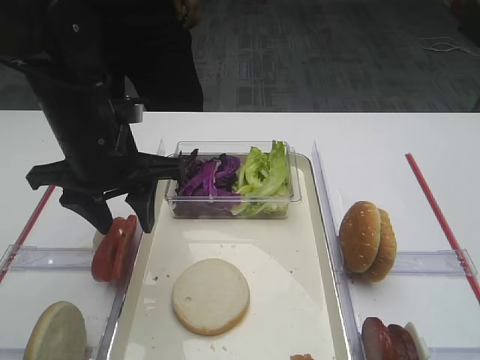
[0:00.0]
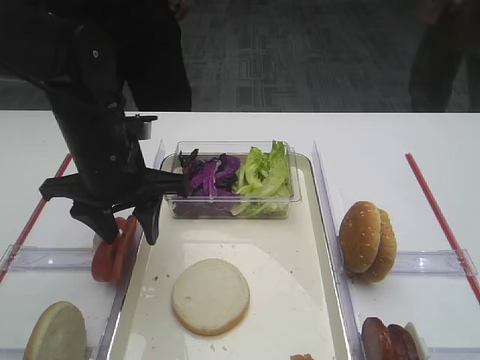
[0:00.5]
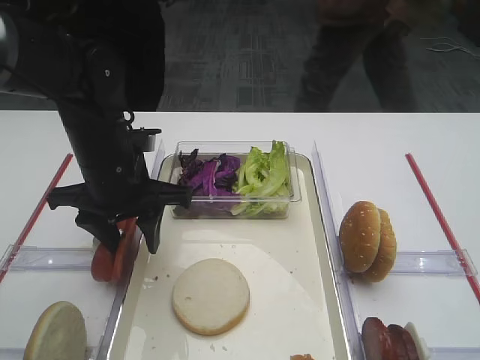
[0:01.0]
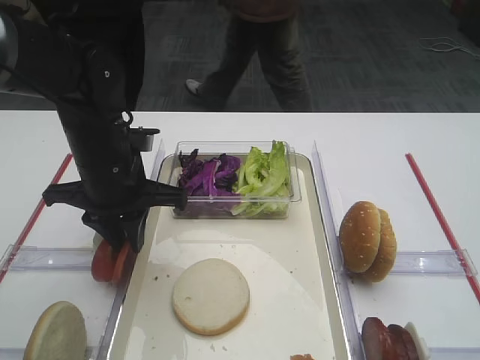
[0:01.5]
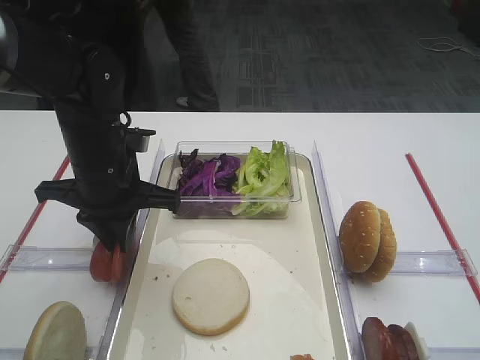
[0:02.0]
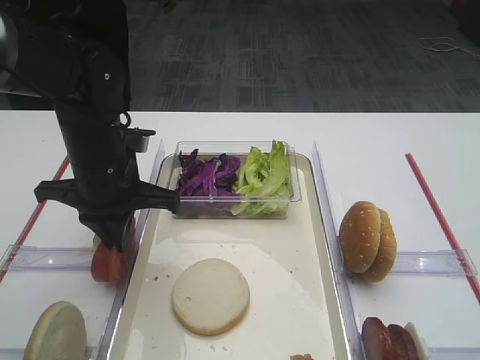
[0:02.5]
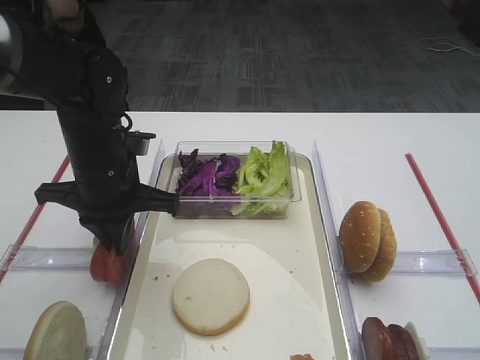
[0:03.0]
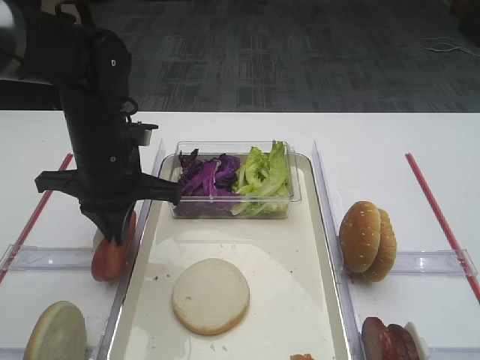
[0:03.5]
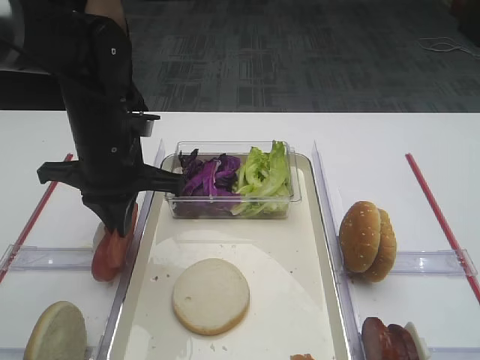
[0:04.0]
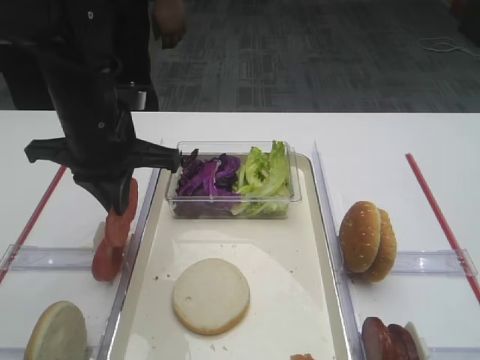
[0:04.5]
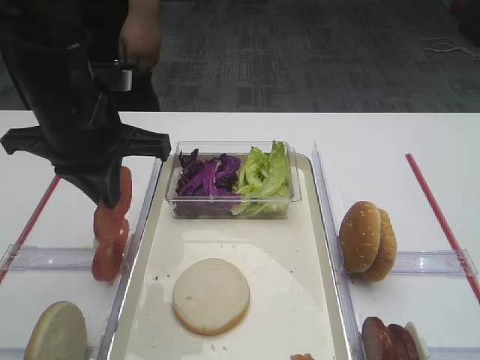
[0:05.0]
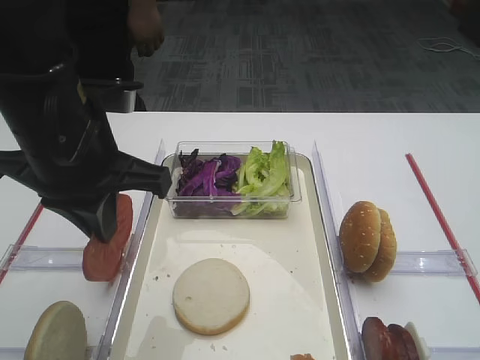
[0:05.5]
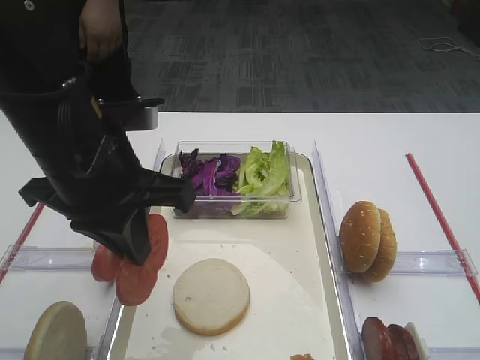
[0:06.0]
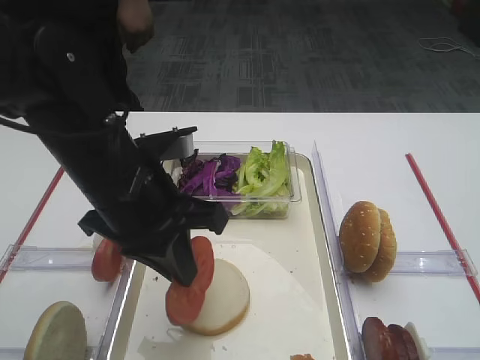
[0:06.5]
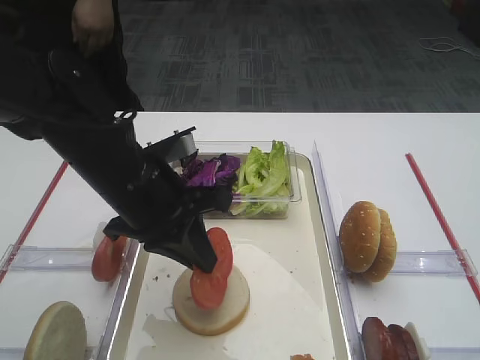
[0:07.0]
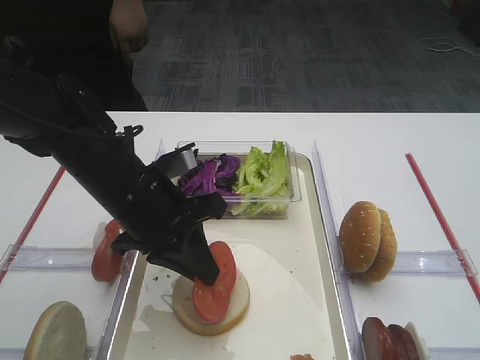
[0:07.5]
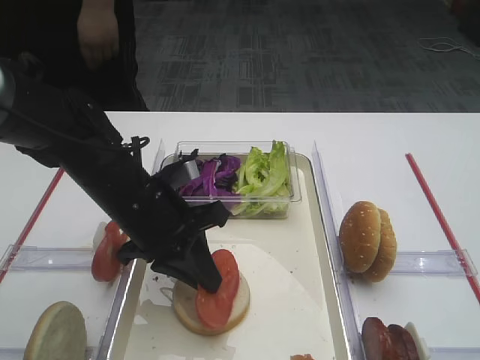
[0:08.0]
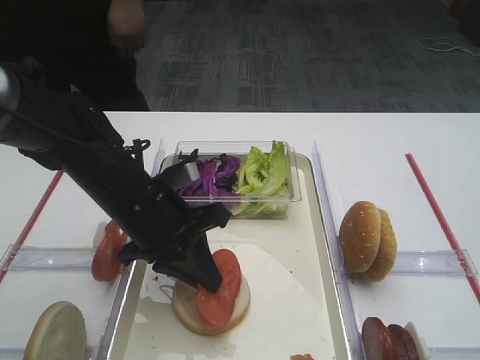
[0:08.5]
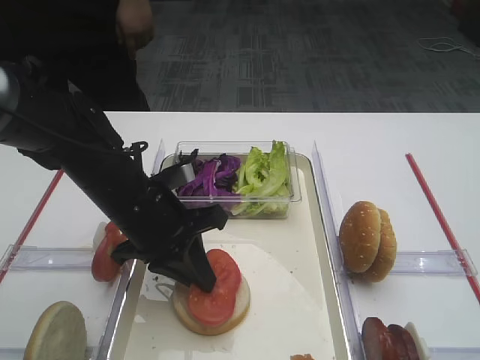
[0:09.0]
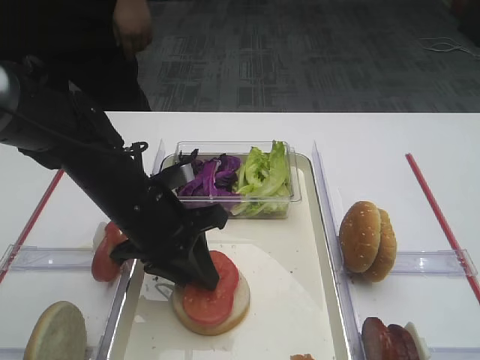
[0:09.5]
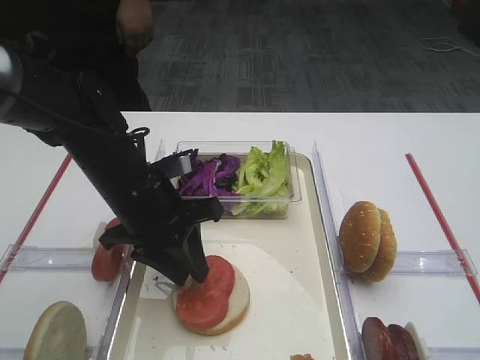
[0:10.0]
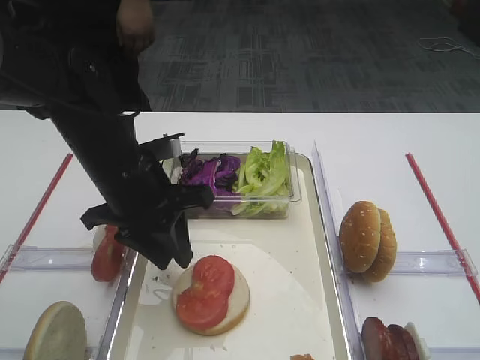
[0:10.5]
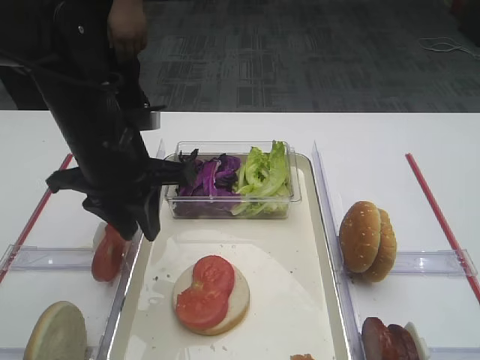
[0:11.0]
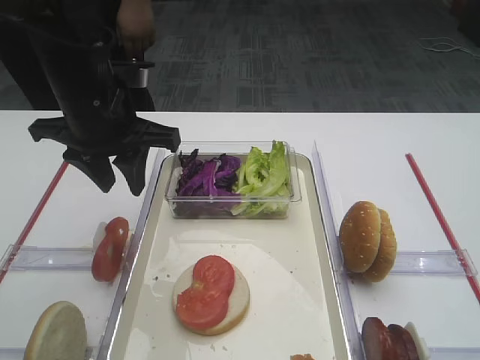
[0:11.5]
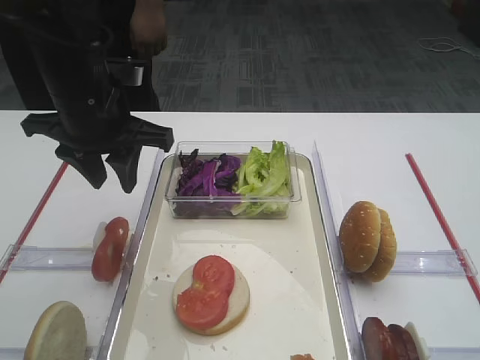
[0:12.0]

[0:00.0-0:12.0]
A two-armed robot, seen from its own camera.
Step, 0:00.0 to 0:04.0: Pick up the tomato slice with the left gripper.
Step, 0:04.5 to 0:10.0: Place the tomato slice on the bread slice with the left gripper.
0:00.0 to 0:02.0: The left gripper shifts by about 5 cm, and closes up.
0:02.0 to 0:04.0: The right gripper closes its fingers.
0:04.0 to 0:06.0: The left gripper shifts about 10 cm backward and upward.
0:06.0 to 0:08.0: The left gripper moves downward, about 10 cm.
0:08.0 to 0:10.0: The left gripper opens.
0:10.0 to 0:12.0: The left gripper goes approximately 10 cm upward.

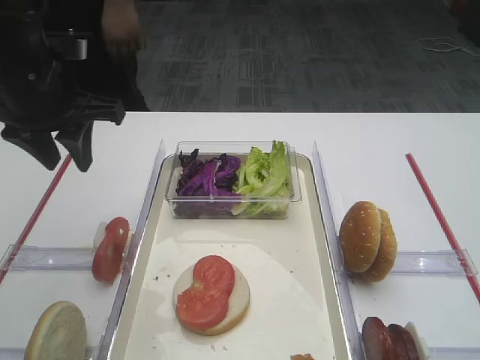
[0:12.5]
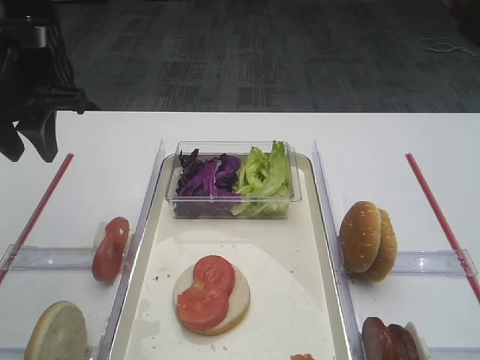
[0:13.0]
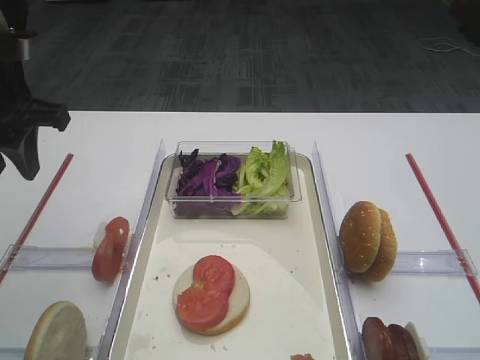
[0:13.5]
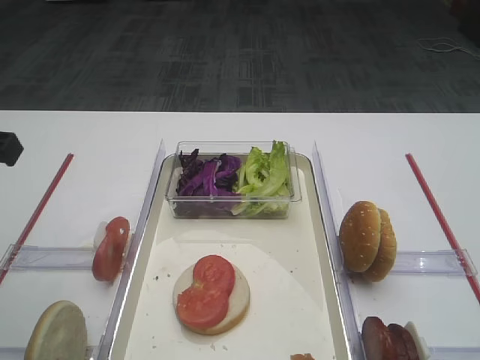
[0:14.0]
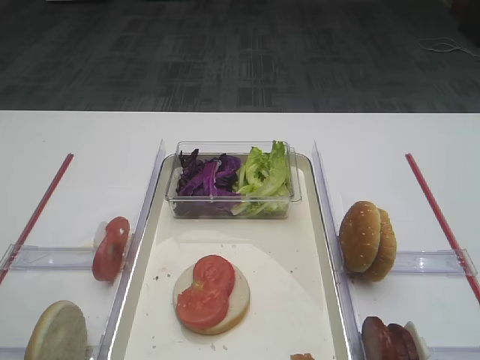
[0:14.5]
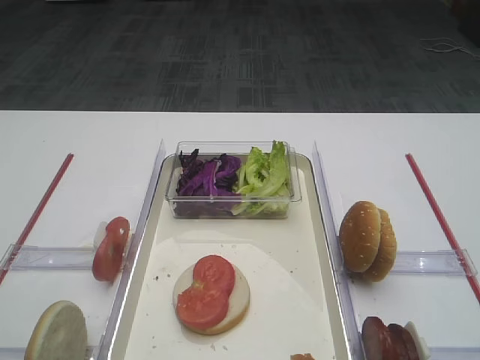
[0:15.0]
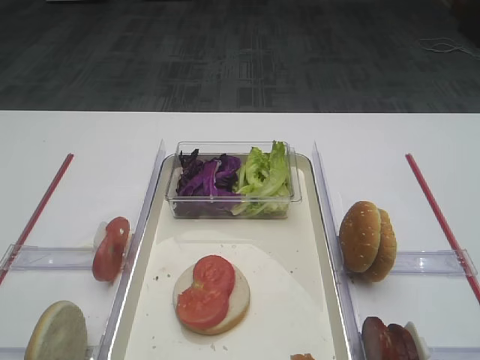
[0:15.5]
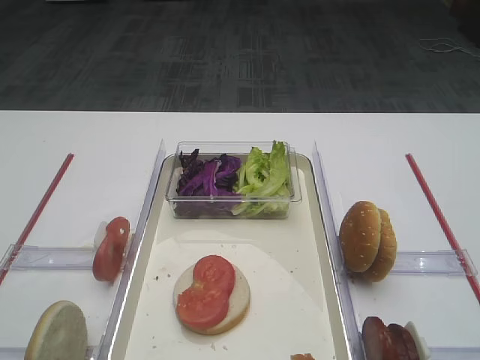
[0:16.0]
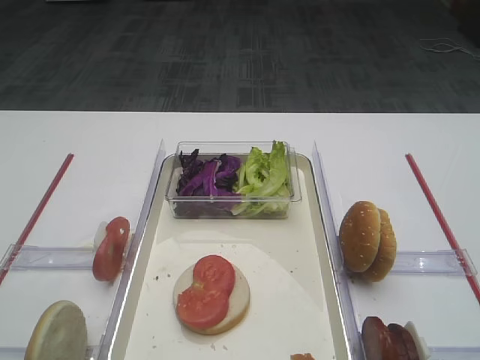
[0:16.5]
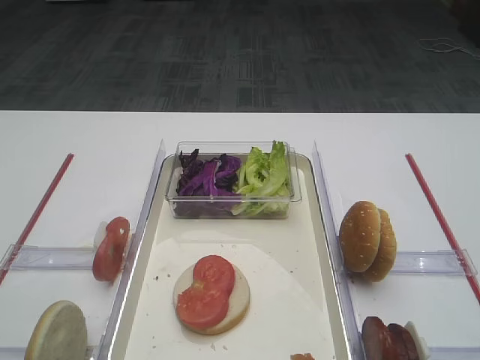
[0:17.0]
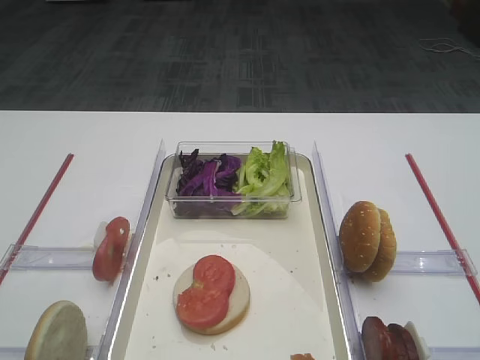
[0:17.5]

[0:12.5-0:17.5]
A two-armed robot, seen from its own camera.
0:12.5 to 0:15.0: The left gripper is displaced backward by about 25 cm.

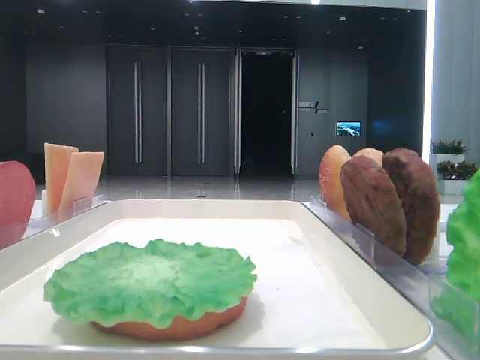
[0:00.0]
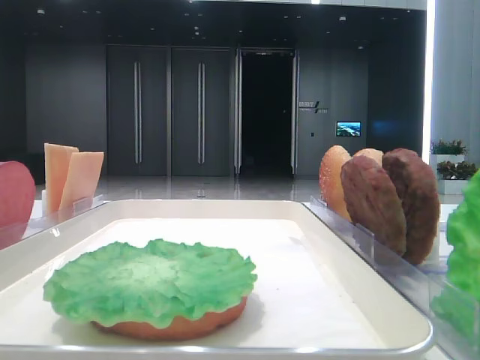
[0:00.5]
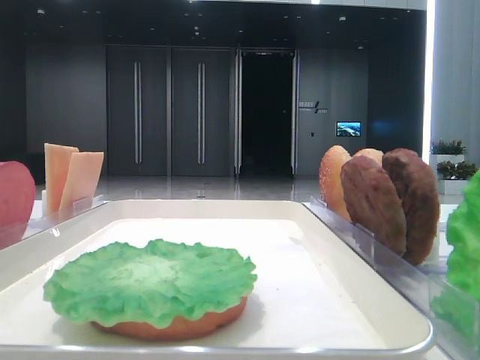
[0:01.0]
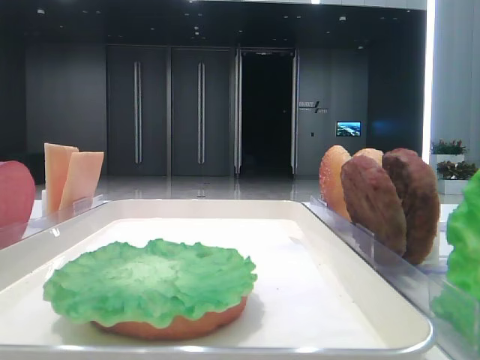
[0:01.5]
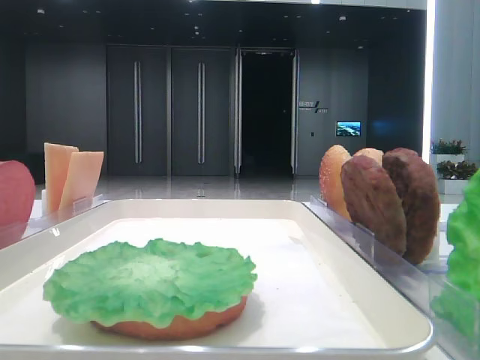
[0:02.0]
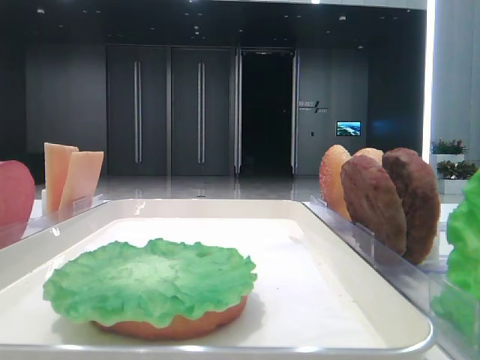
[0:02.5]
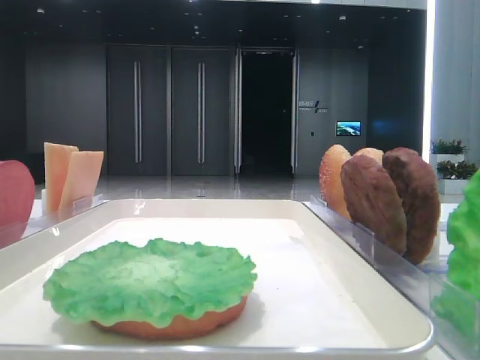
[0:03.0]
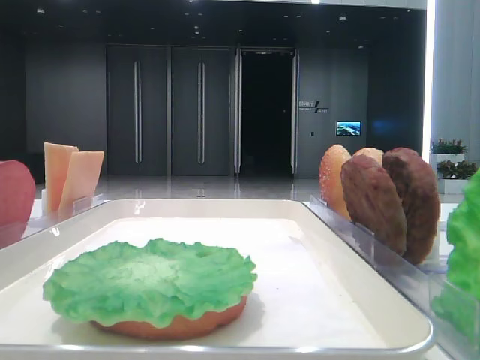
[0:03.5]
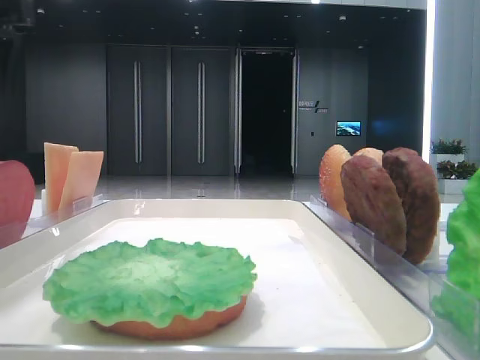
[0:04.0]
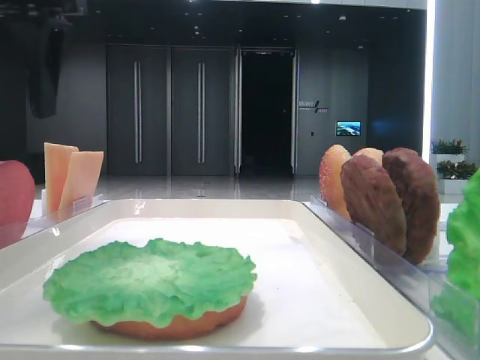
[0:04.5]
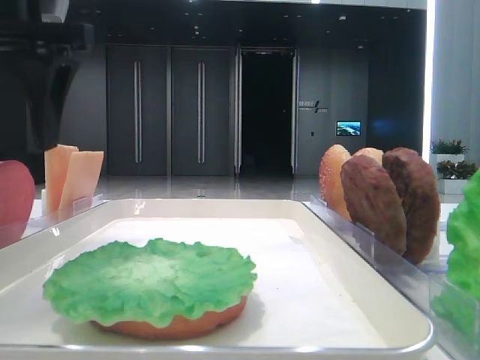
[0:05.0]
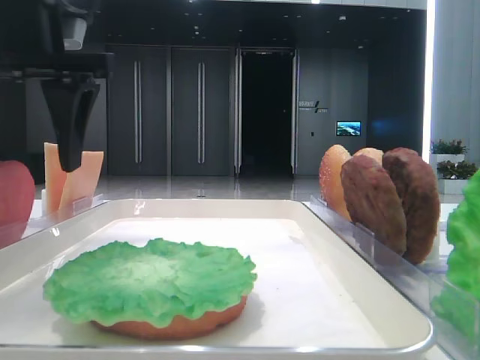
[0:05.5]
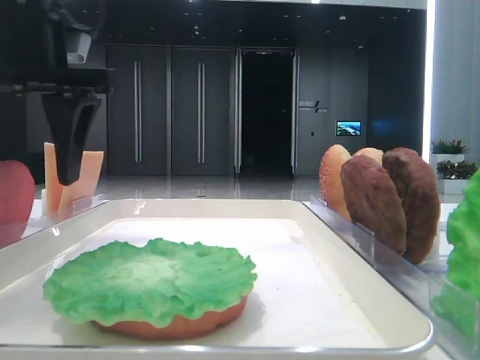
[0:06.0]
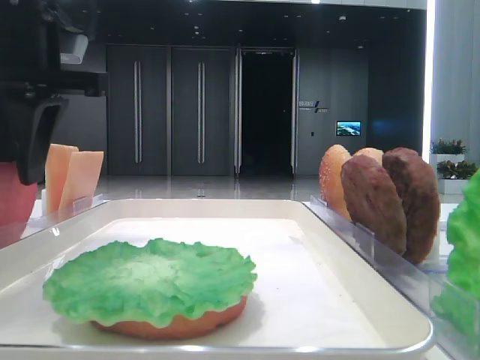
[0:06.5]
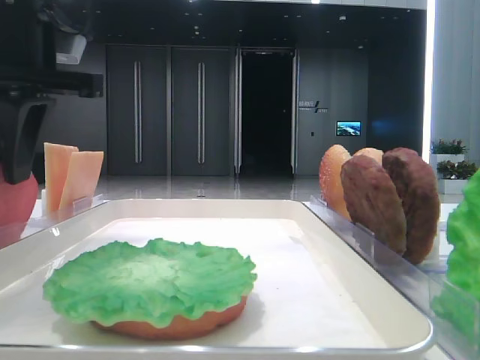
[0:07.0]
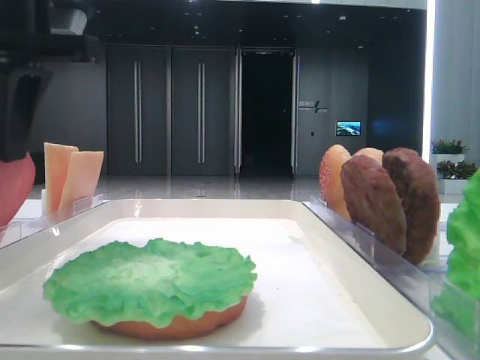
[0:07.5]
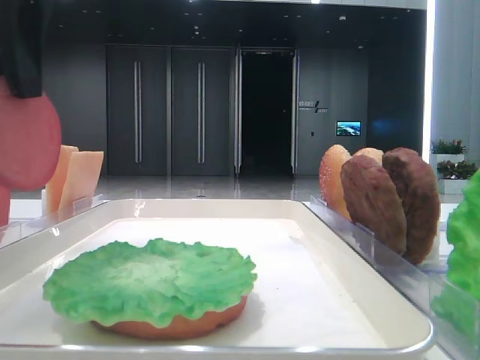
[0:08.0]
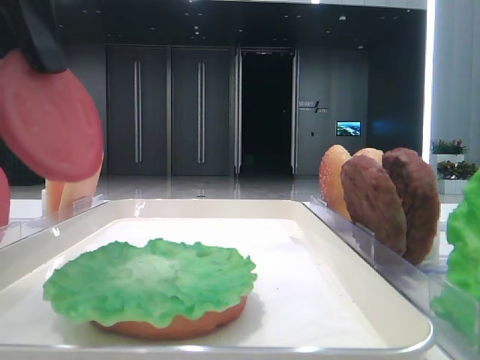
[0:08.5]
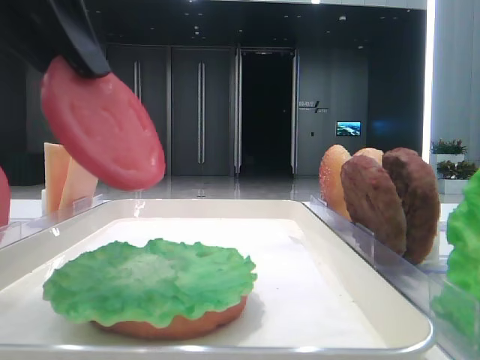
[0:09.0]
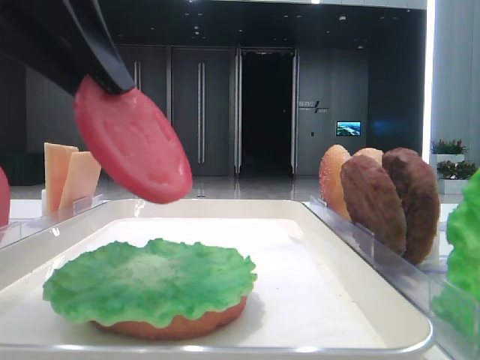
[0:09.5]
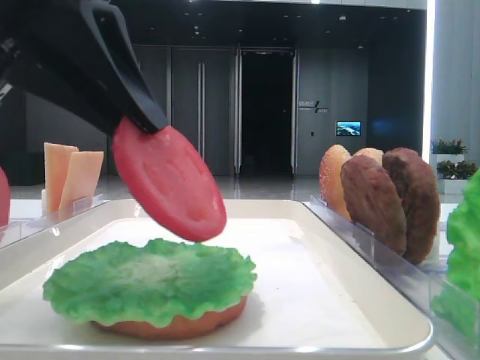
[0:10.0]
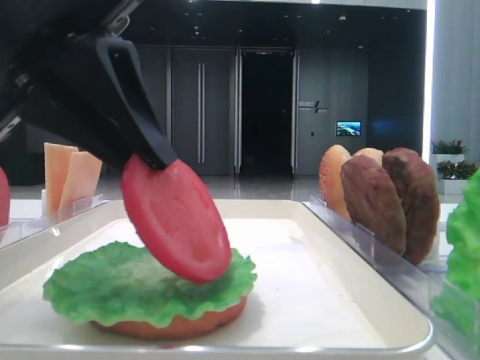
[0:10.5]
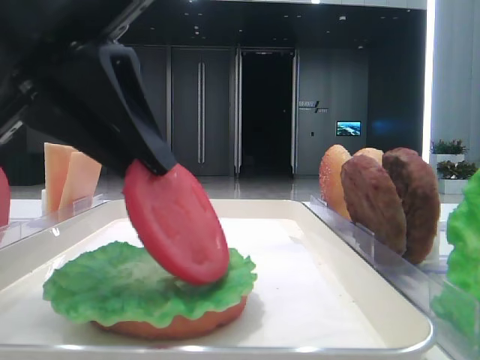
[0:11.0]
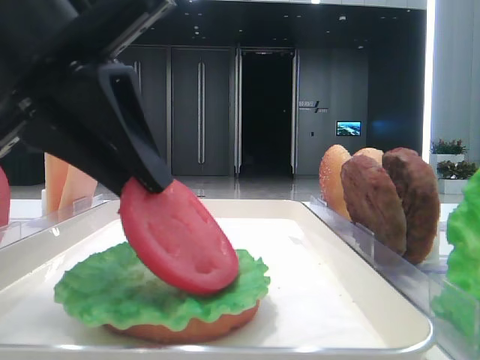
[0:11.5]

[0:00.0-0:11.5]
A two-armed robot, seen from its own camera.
Step, 0:00.0 to 0:07.0: Pick up the tomato slice with the left hand.
0:02.0 to 0:04.0: The left gripper heads forward and to the right, covering some 15 cm.
0:04.0 to 0:06.0: The left gripper shifts about 5 cm to the right.
0:06.0 to 0:07.5: The left gripper closes up.
0:07.5 to 0:09.5: The left gripper moves backward, about 10 cm.
0:09.5 to 0:11.5: The left gripper heads downward, covering approximately 5 cm.
